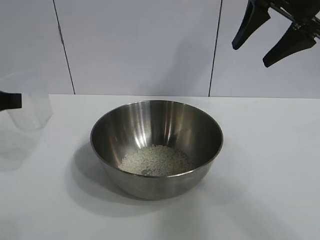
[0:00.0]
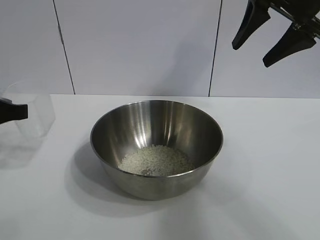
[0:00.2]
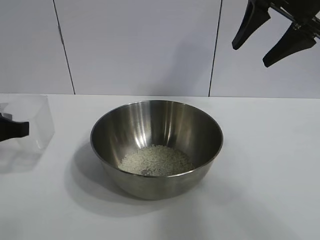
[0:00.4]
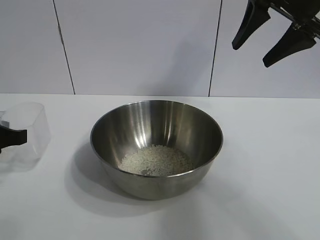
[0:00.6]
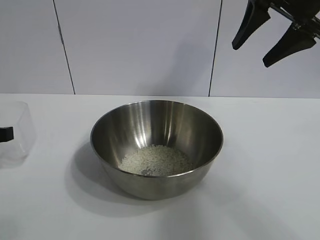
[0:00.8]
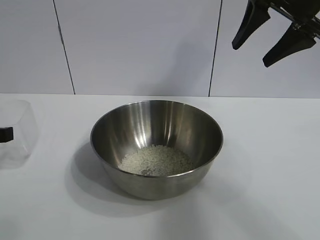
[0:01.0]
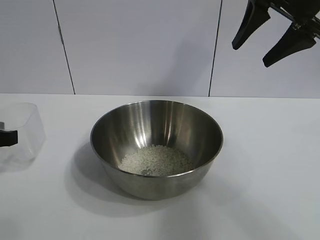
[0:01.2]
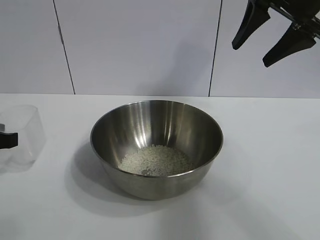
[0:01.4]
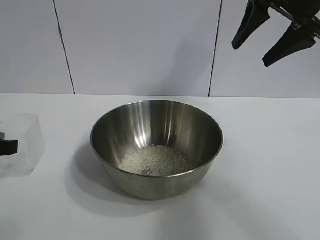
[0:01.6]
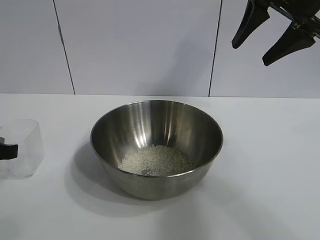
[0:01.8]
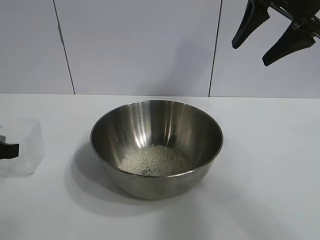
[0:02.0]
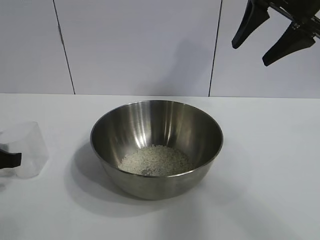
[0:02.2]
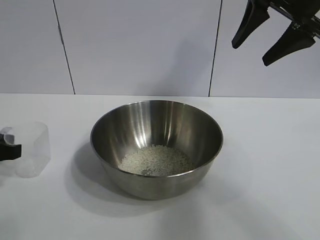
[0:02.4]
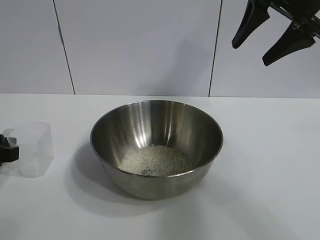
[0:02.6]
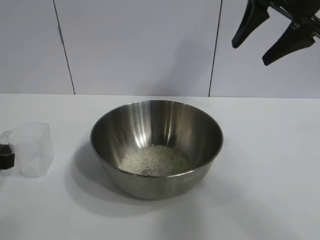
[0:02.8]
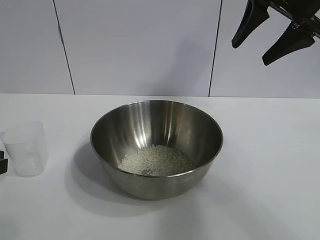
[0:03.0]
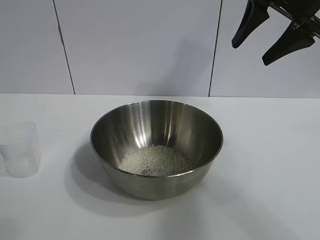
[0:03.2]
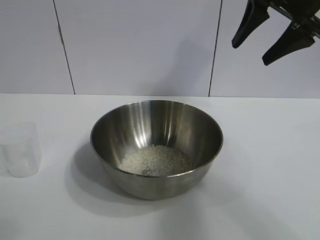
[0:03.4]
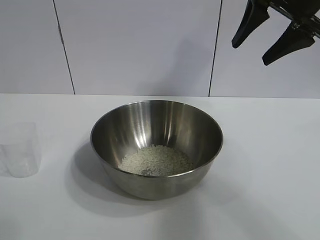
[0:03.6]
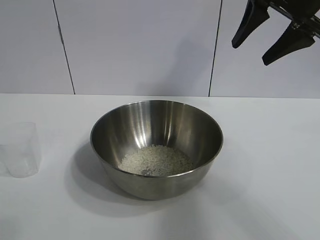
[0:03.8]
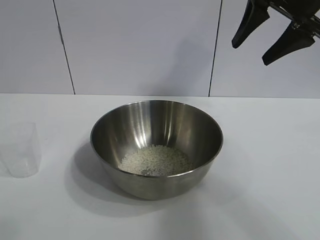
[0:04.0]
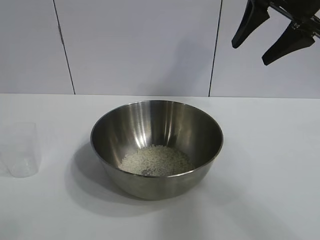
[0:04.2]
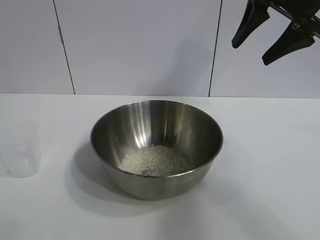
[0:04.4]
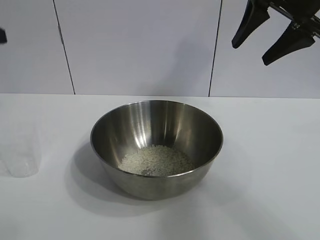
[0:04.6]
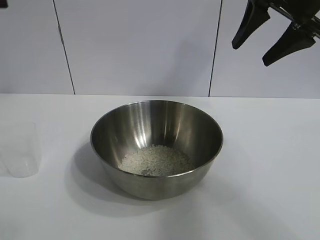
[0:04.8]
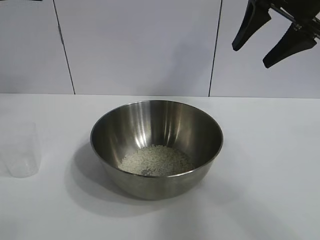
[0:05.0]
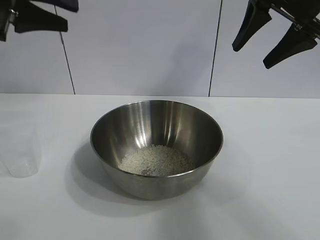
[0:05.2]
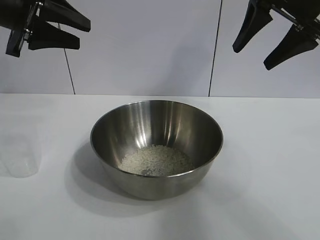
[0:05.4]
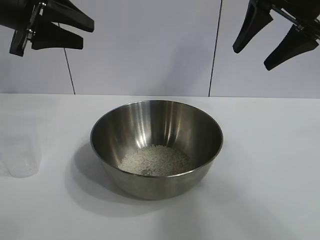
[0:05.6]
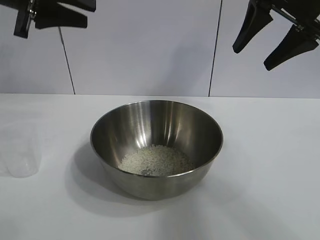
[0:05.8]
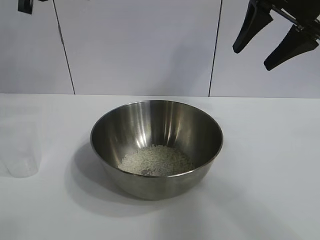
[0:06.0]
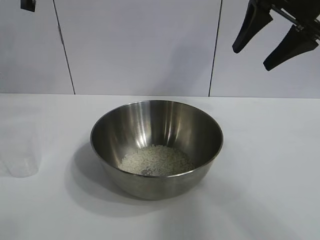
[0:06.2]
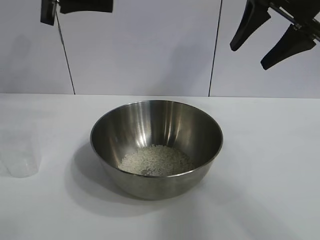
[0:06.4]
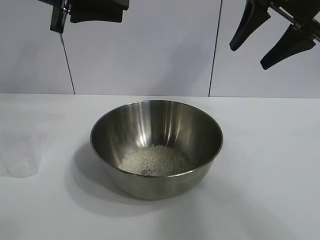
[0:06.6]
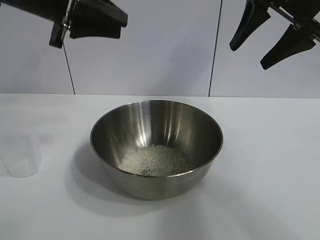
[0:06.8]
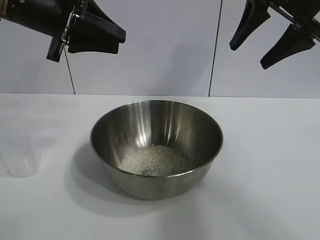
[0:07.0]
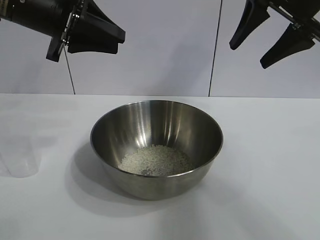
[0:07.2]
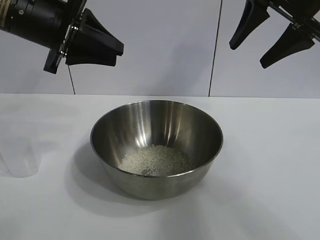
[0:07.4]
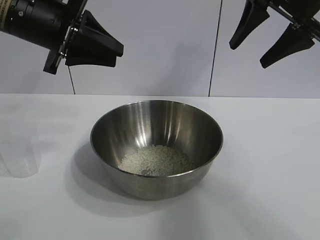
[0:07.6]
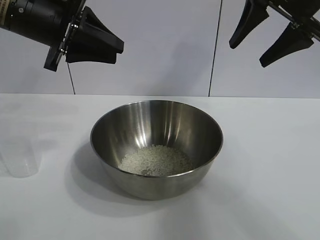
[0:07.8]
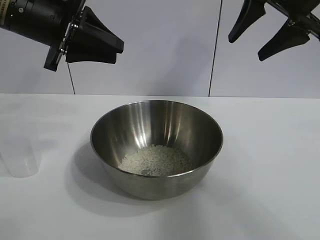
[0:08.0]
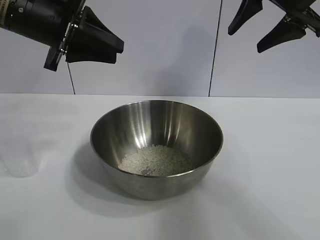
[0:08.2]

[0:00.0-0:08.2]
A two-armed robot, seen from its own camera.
Task of the whole recording: the right gripper grasp the rice container and place it in the center of the table, the left gripper grasp the rice scoop and pour the rice into the rice container.
Step, 0:00.0 to 0:02.6: Place the cup on the table with the left gripper.
